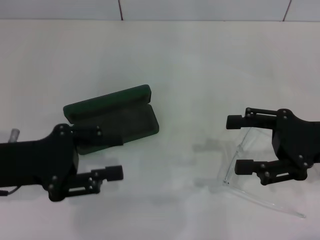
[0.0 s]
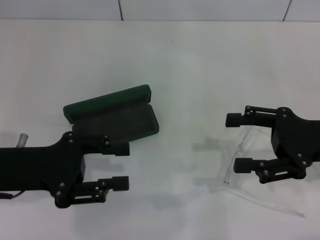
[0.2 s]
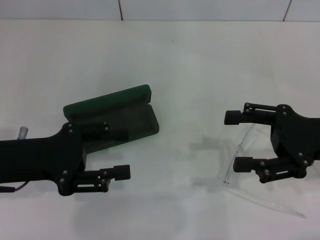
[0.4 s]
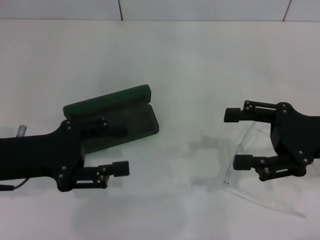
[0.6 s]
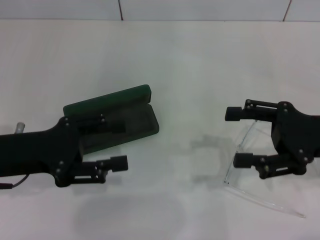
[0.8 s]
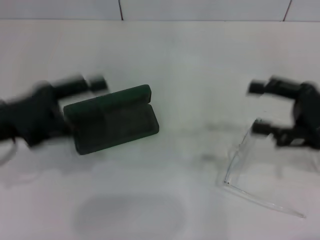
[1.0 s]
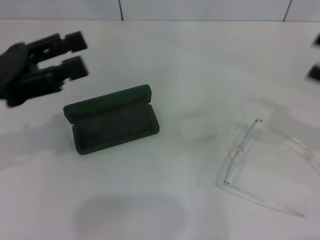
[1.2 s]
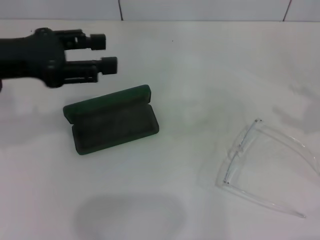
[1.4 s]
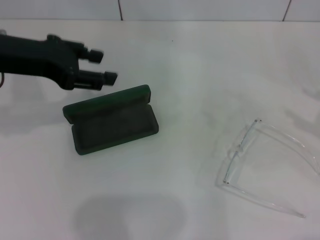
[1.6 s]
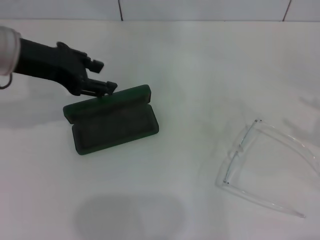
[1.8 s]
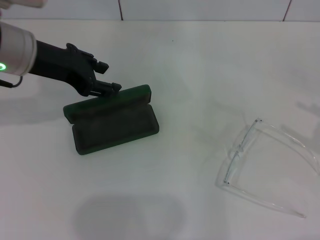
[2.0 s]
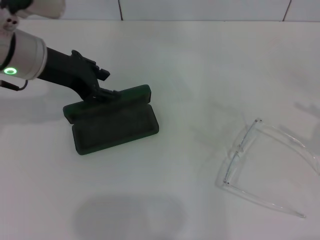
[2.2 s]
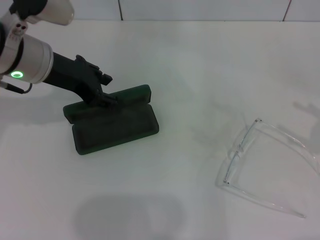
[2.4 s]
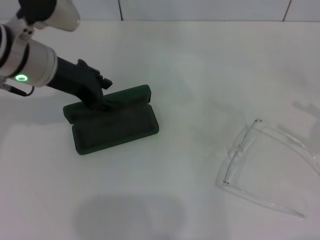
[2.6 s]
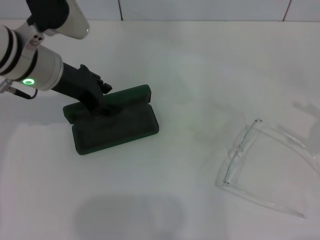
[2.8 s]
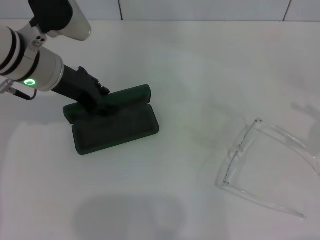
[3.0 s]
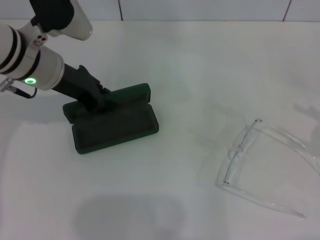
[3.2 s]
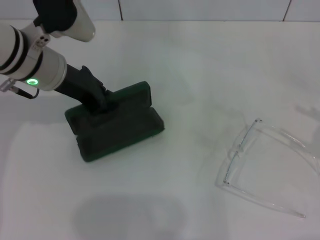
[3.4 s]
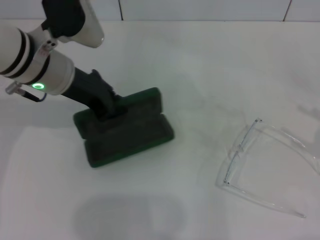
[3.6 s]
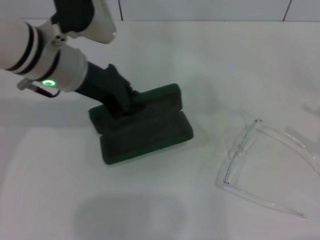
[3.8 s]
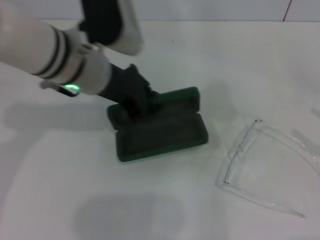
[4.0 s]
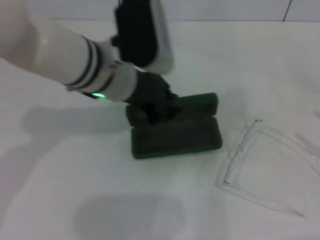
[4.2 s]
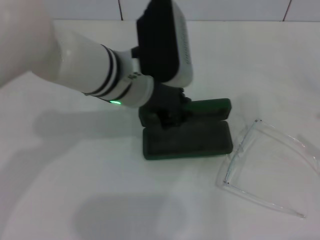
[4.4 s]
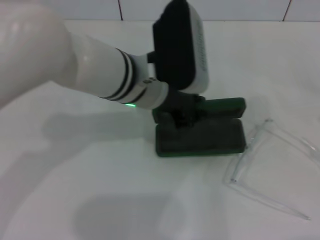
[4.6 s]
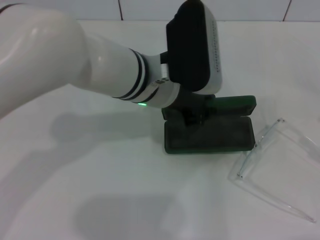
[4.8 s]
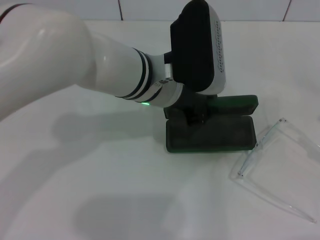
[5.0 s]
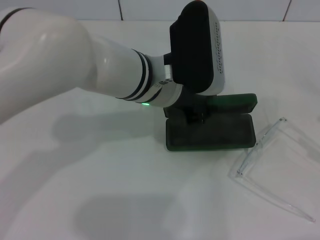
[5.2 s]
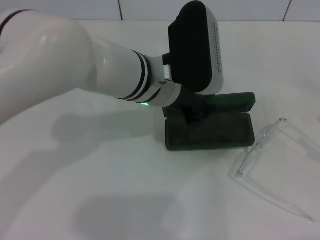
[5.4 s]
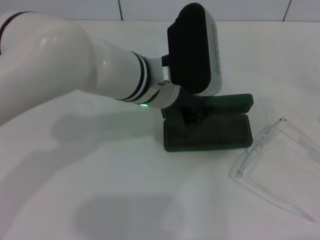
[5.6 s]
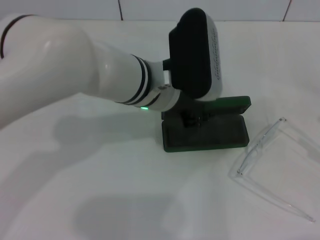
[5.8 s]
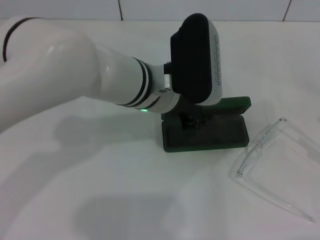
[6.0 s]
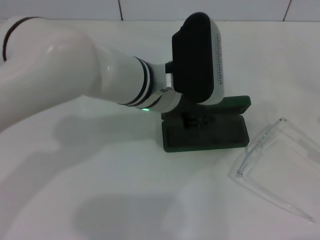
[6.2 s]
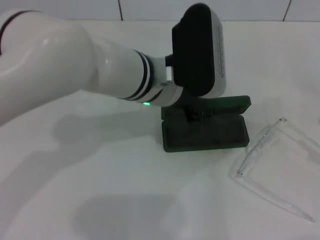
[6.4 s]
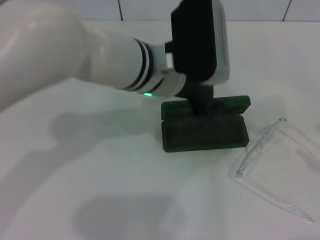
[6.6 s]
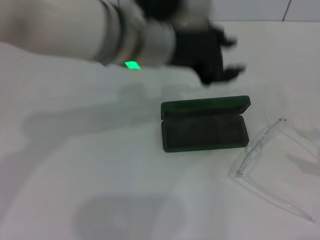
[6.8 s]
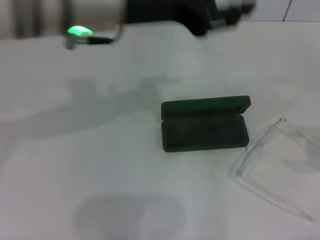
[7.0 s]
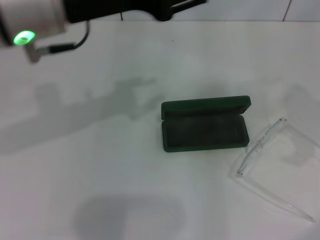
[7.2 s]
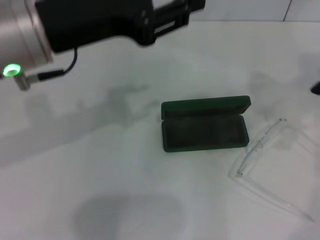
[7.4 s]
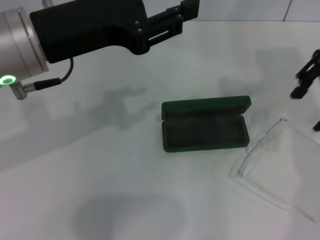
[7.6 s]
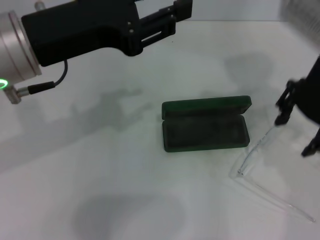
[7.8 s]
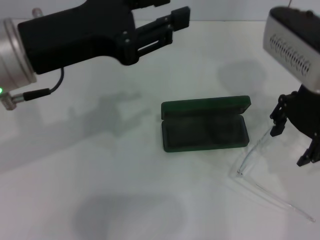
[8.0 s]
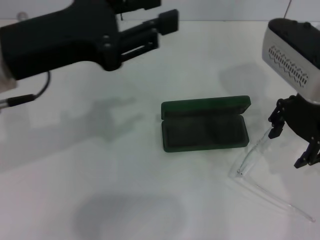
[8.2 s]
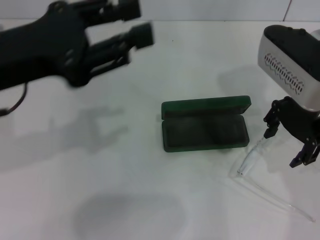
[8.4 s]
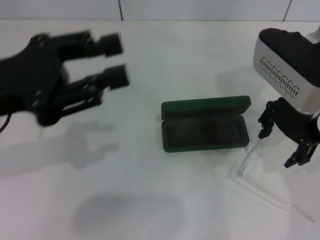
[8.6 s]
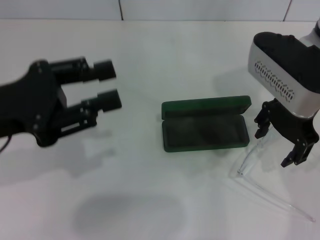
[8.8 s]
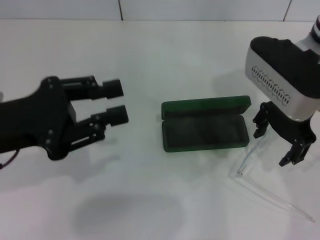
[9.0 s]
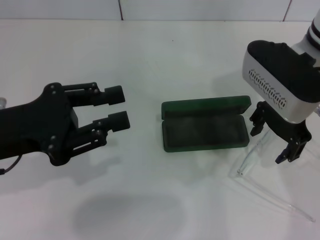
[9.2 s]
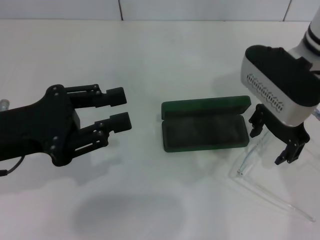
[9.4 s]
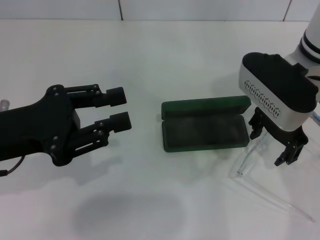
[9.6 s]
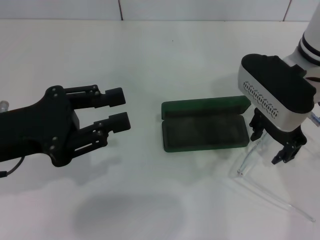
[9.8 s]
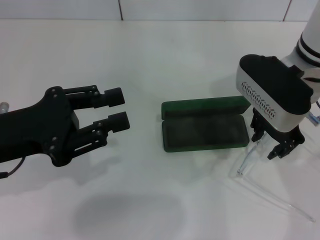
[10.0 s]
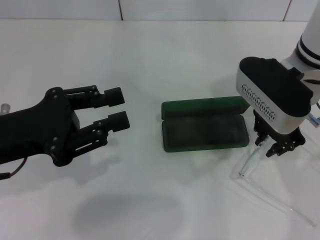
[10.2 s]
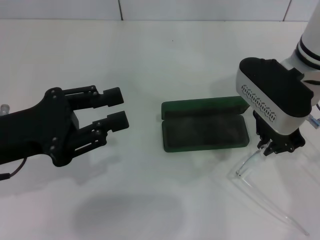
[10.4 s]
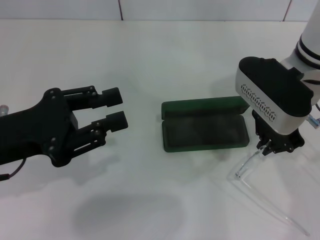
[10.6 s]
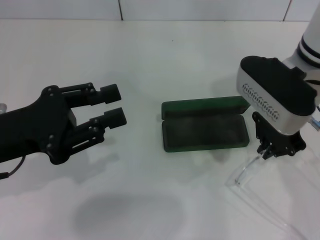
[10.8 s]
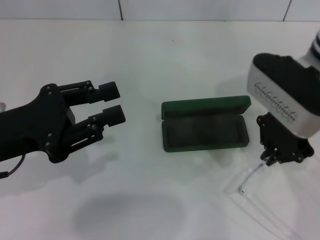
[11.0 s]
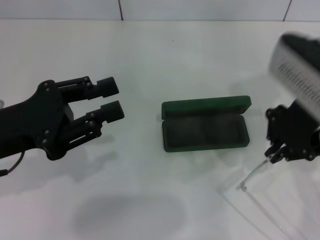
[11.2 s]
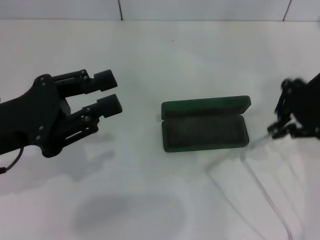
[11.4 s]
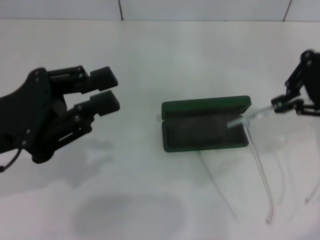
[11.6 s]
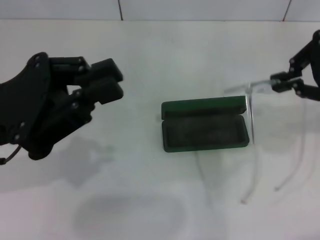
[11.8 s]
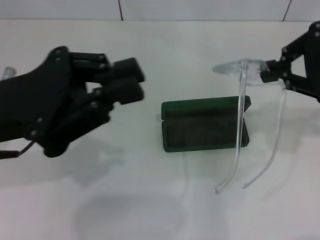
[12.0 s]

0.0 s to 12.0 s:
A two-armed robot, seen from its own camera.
Step, 0.0 to 3.2 s: Grab the glasses case with your left hand.
Step, 3.4 to 6.4 s: Place the glasses case in the center of the table with your left hand.
Step, 6.6 to 10.4 s: Grab the eyeglass frame with your right hand.
0.0 to 1.6 s: The right gripper shifts approximately 15 cm to the right, while the left gripper moves upward and forward, approximately 15 cm.
1.6 to 3.0 s: The left gripper is displaced downward and to the right by roughly 10 cm.
3.0 to 4.4 s: The right gripper changes place by about 5 cm. The left gripper heads to the right, covering roughly 10 cm, and closes its fingers.
6.0 to 7.6 s: The left gripper travels to the left, upward and backward by approximately 20 cm, and opens. The right gripper heads to the left, forward and upward, covering roughly 30 cm.
7.6 to 9.0 s: The right gripper heads downward and to the left, covering some 10 cm. The left gripper moves to the left and downward, approximately 10 cm.
9.0 to 10.4 s: The right gripper closes its fingers.
10.4 to 12.0 s: The left gripper changes place by roughly 5 cm, while the right gripper moves to the right, upward and backward, approximately 15 cm.

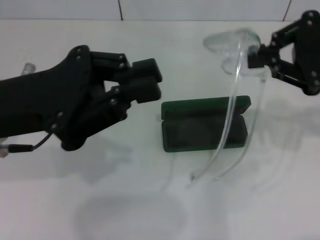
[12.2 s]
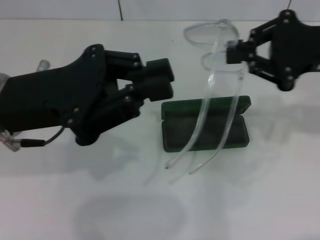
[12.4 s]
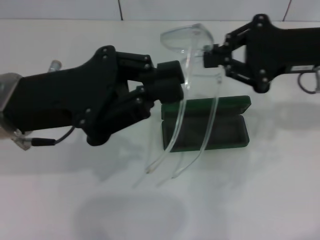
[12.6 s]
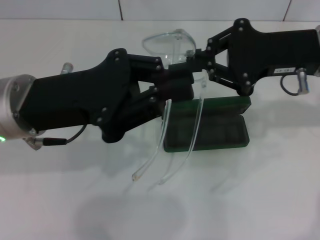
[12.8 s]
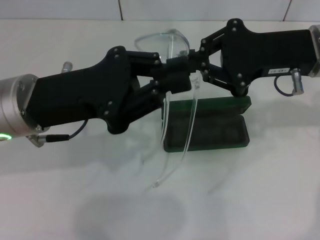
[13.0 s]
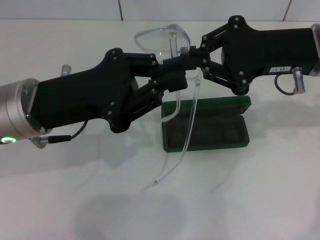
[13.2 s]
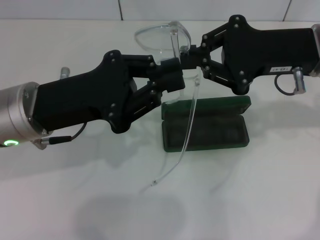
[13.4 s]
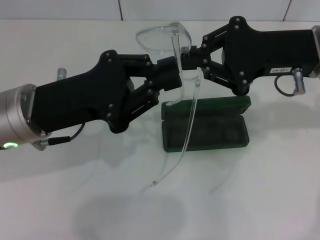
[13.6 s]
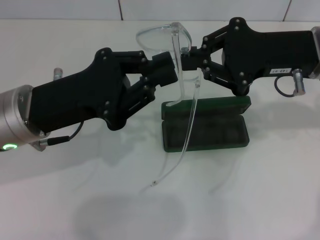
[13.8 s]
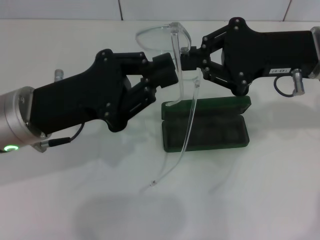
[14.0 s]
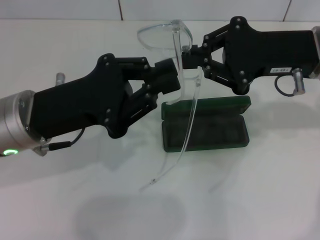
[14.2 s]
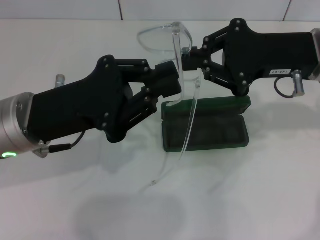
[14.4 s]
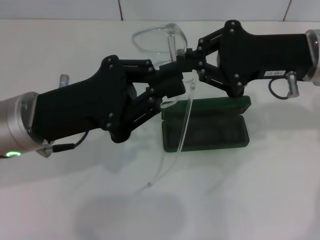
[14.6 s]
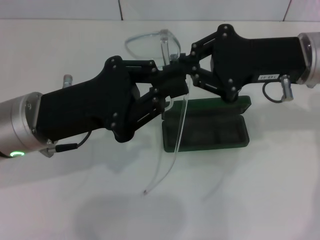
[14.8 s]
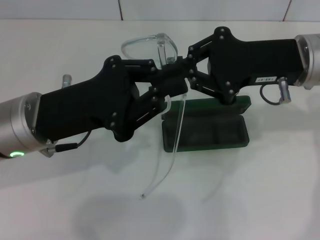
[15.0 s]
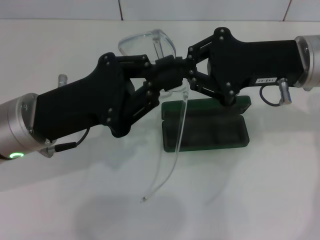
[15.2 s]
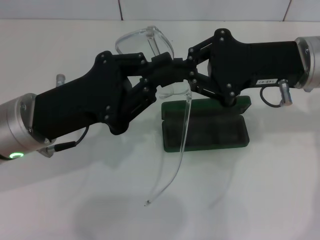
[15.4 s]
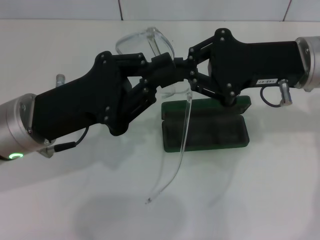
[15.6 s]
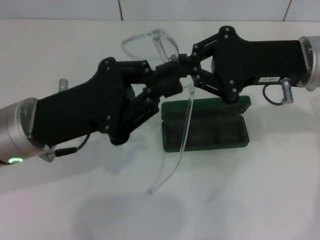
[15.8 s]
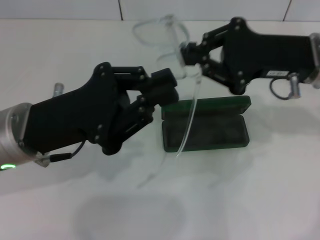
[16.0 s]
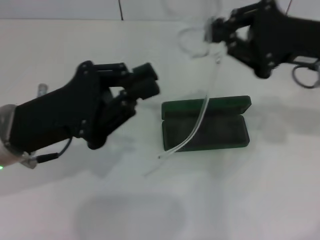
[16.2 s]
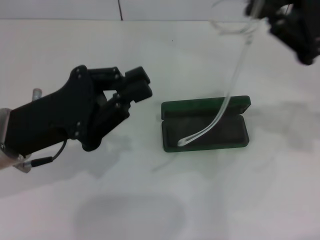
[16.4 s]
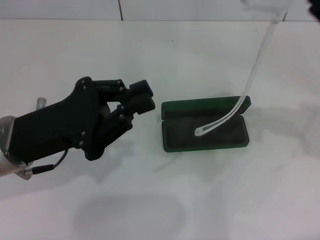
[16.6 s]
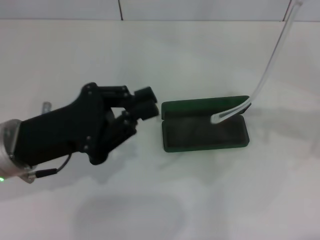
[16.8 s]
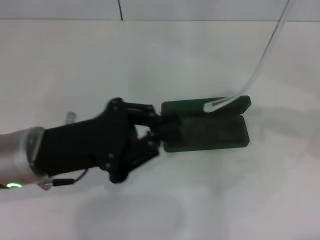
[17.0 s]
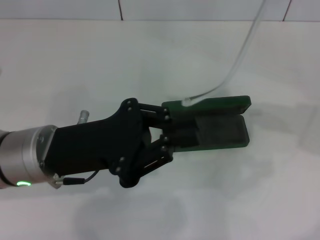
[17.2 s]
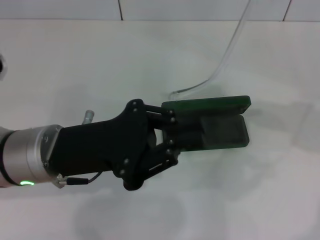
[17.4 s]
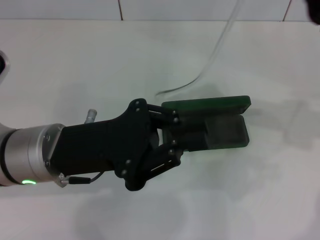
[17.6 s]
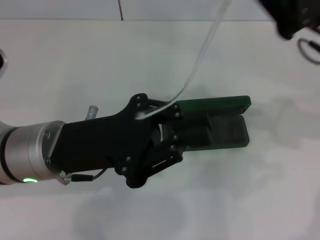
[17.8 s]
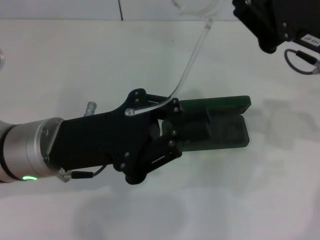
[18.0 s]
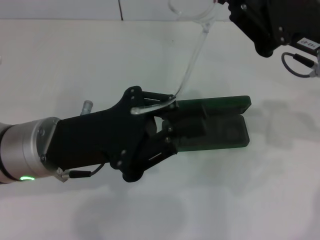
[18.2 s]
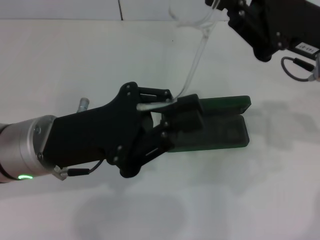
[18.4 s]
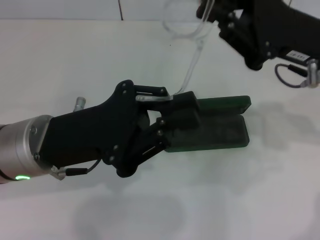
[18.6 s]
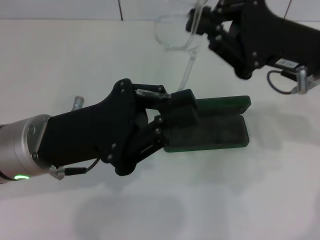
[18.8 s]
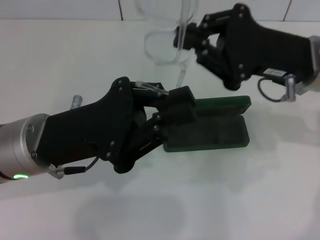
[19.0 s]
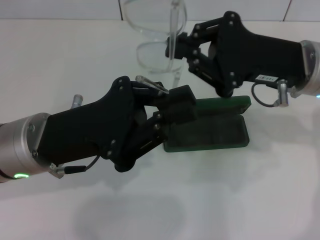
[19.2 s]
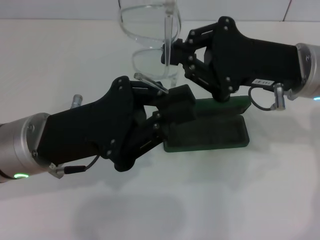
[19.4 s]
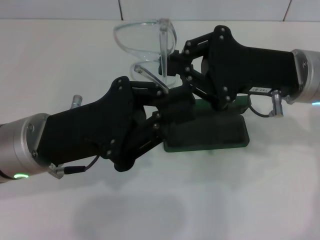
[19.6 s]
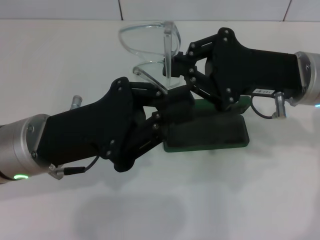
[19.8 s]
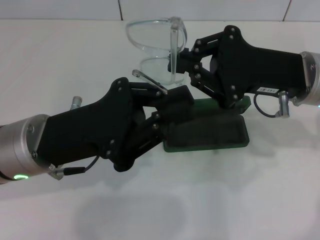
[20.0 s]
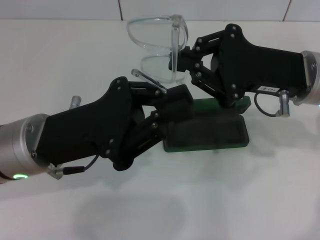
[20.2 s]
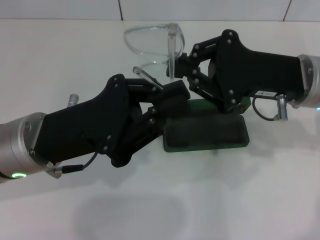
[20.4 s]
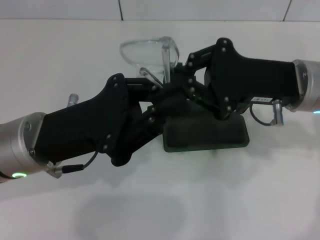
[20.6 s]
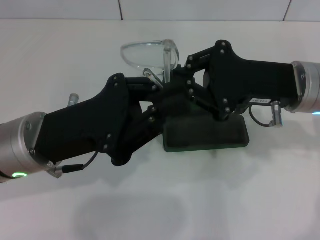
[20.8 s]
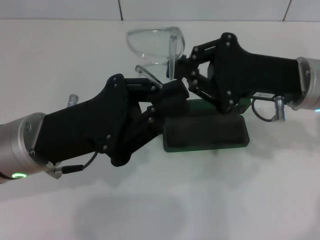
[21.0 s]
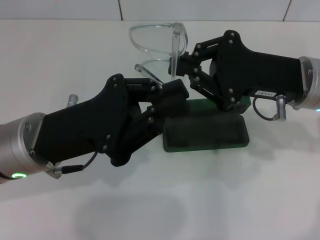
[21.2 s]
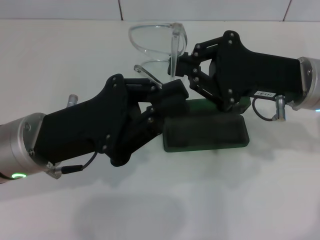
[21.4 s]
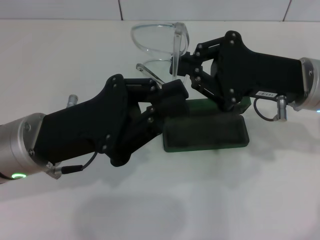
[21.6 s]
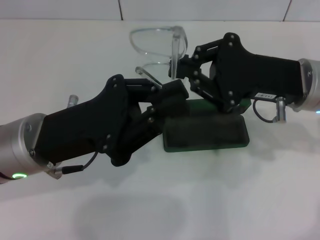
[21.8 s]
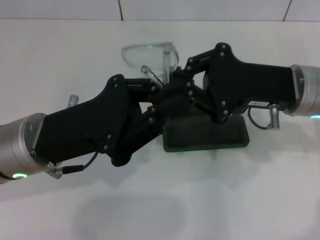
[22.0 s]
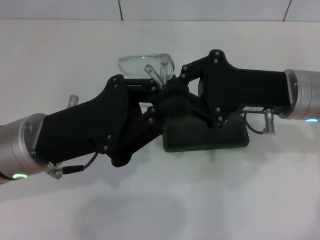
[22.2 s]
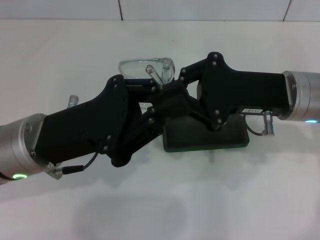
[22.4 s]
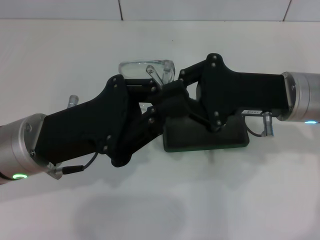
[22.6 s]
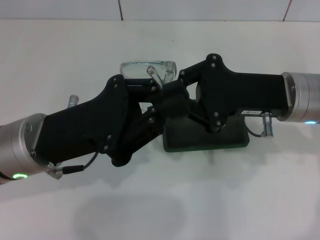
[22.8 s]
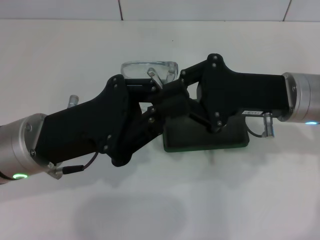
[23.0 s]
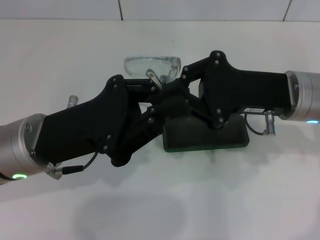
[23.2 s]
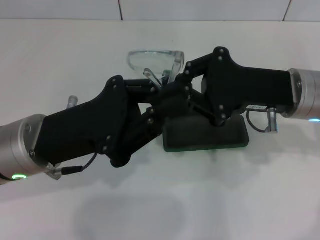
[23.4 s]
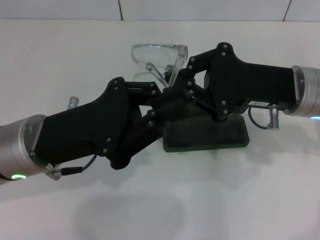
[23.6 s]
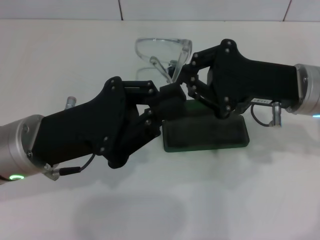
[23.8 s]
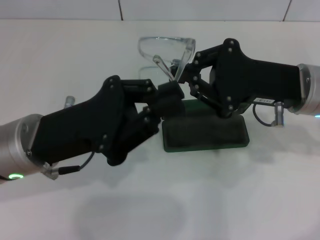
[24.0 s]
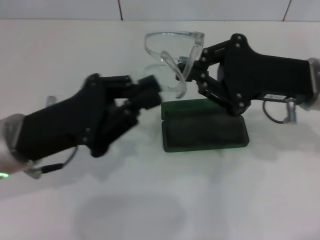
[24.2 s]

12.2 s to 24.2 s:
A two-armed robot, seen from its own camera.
Step, 12.2 to 23.8 s: Fold the frame with your left hand.
12.2 to 13.8 s: The left gripper shifts by about 5 cm, while the right gripper is displaced to the left by about 5 cm.
13.8 to 15.2 s: The grippers move only a little.
15.2 to 16.6 s: The right gripper moves to the right, approximately 10 cm.
16.6 to 18.2 s: The right gripper goes approximately 5 cm to the left.
19.8 to 21.2 s: Neither gripper changes place.
21.2 to 24.2 s: The grippers make only small movements.
